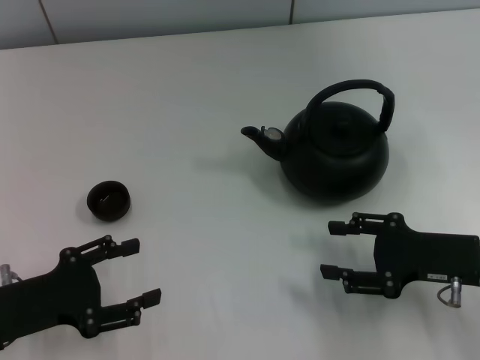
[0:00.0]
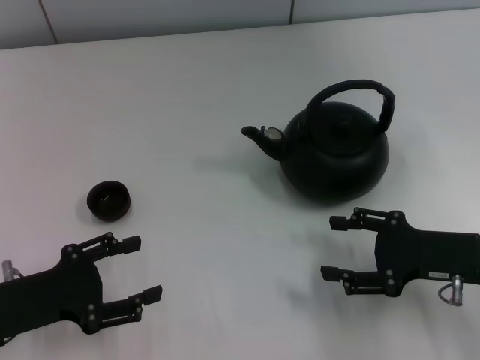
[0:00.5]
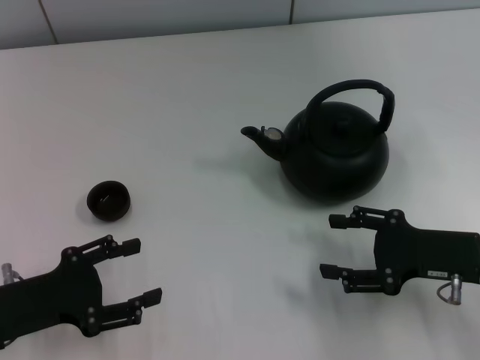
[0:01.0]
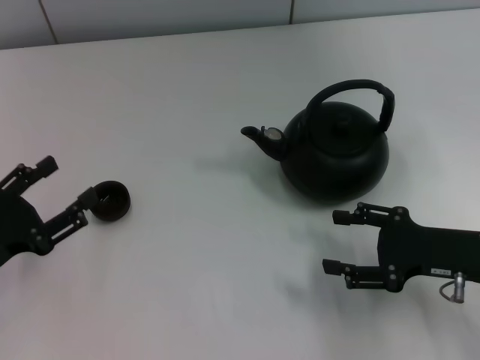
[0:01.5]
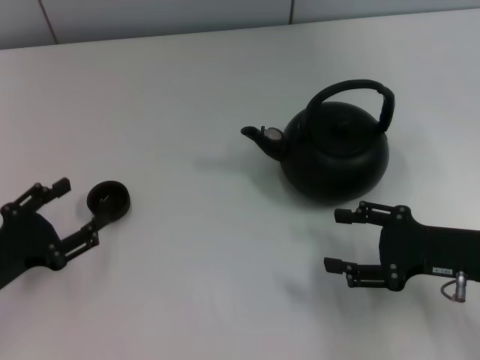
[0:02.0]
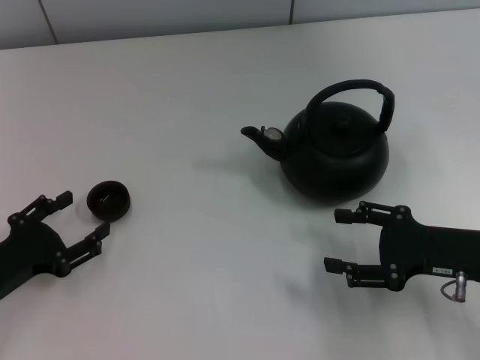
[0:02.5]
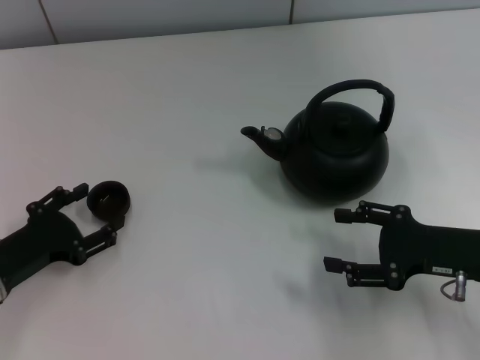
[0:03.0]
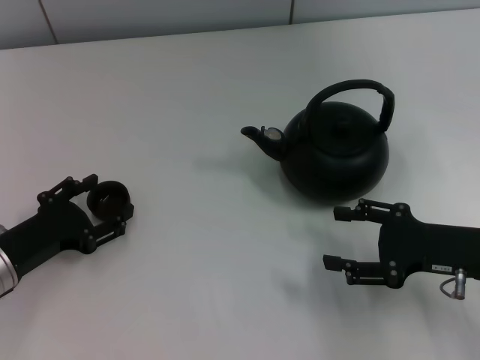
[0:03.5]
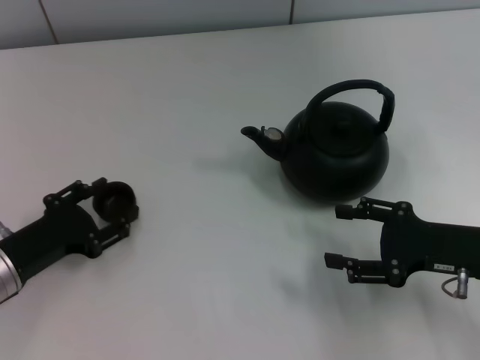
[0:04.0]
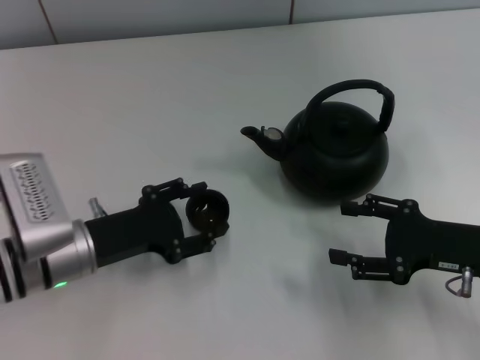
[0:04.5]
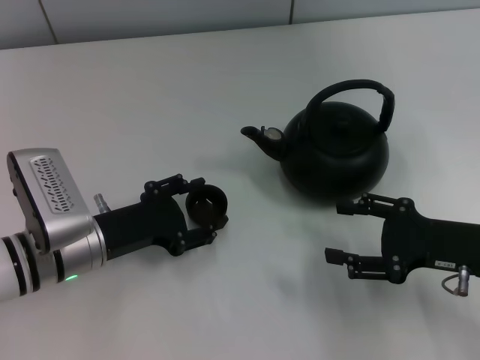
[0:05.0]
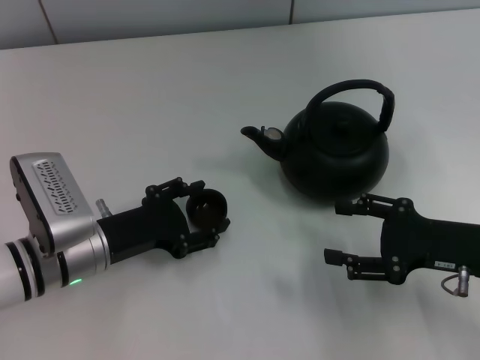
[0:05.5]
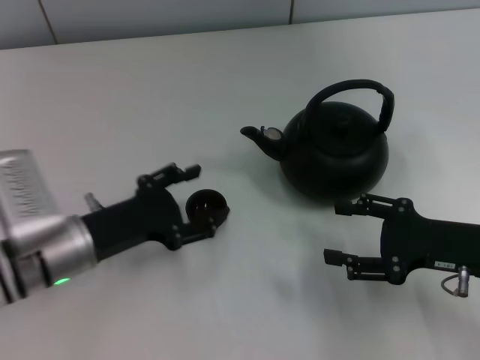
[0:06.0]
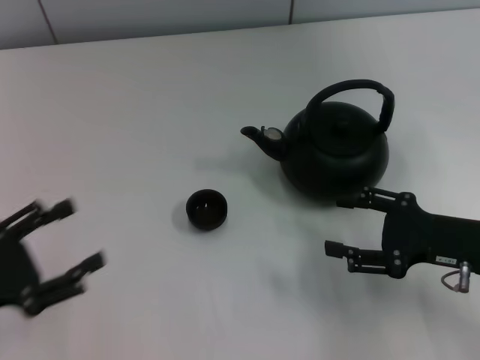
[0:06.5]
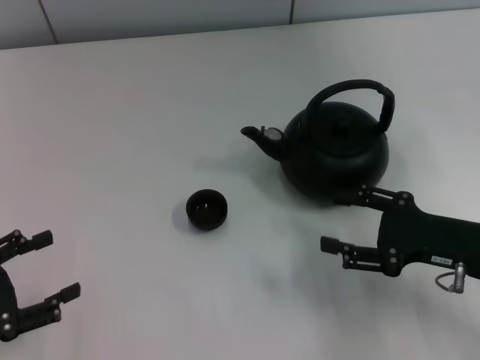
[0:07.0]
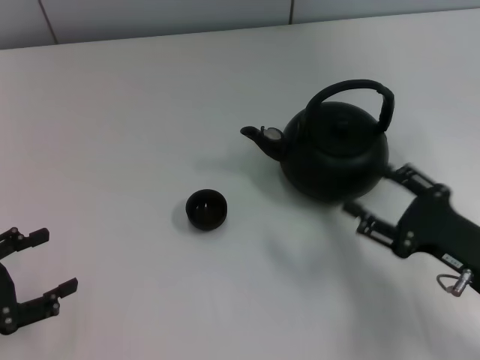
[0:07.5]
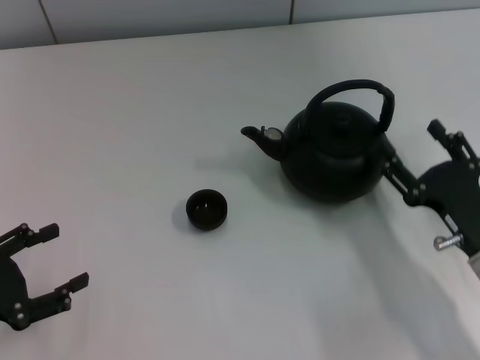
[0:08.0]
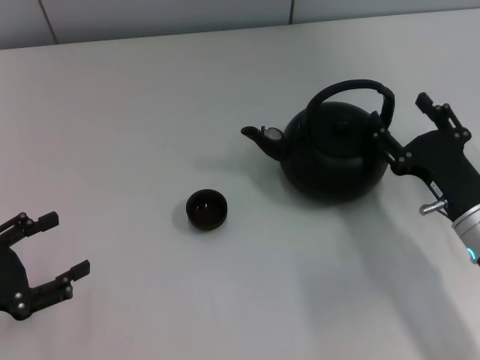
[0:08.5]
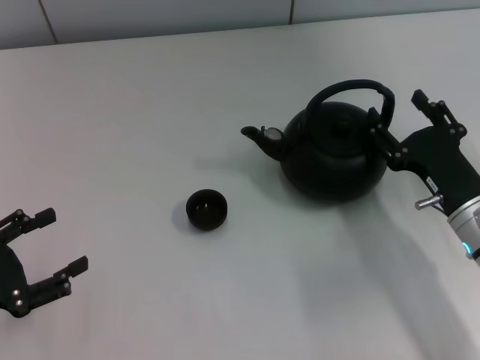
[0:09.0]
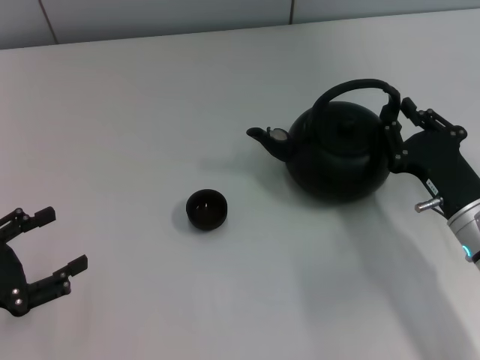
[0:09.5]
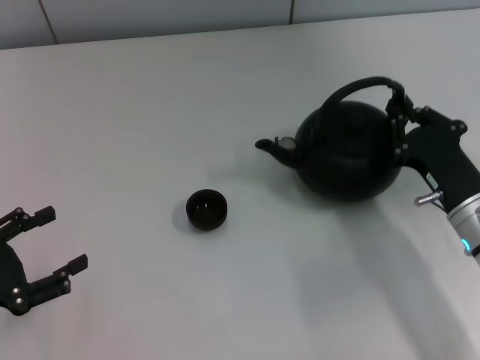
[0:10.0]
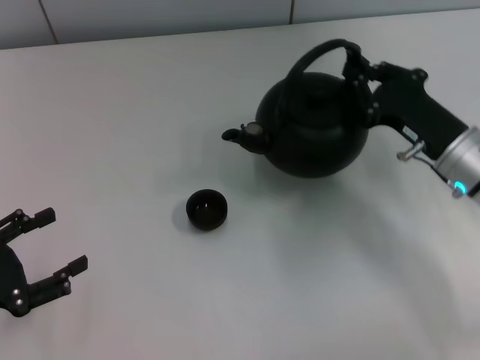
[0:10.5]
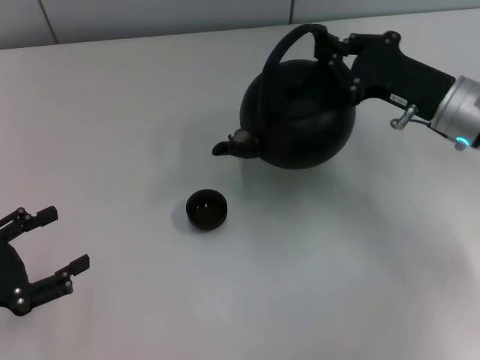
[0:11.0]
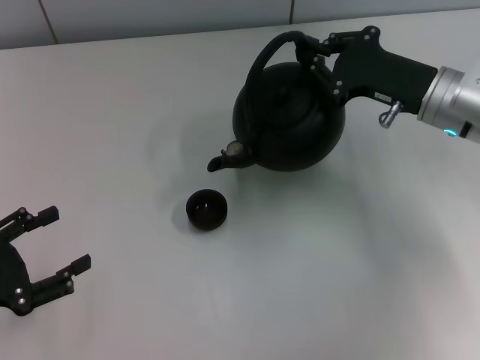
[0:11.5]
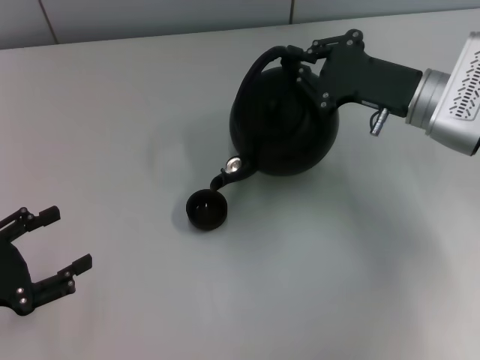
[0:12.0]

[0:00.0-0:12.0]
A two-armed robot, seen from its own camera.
Task of the whole recording: Grasp the handle of the teapot with one hand and pour tea into the teacup.
Step, 0:00.0 to 0:04.0: Pick up the teacup with the left gripper.
Step, 0:04.5 to 0:05.5: Place the teacup in the center of view with the left gripper.
Step, 0:06.0 to 0:10.5: Pick up the teapot with the right gripper.
0:02.0 to 0:04.0: The left gripper closes its fingers.
0:04.0 to 0:06.0: The left gripper is displaced to the right by approximately 5 cm, and opens.
0:06.0 to 0:08.0: The left gripper travels to the left and backward by about 15 cm, while the right gripper shifts by about 5 cm.
0:08.0 to 0:10.0: The right gripper closes.
0:10.0 to 0:12.0: The right gripper travels forward and upward by approximately 15 cm.

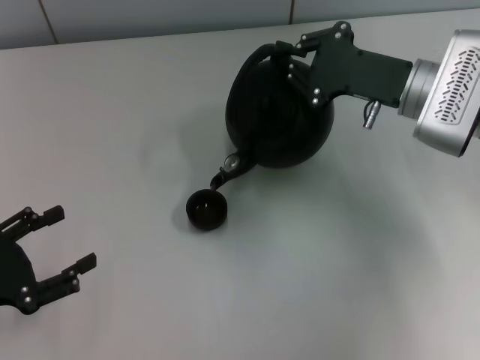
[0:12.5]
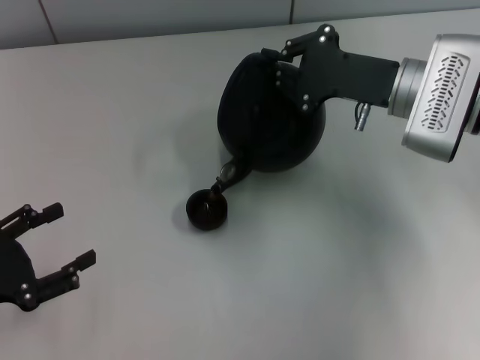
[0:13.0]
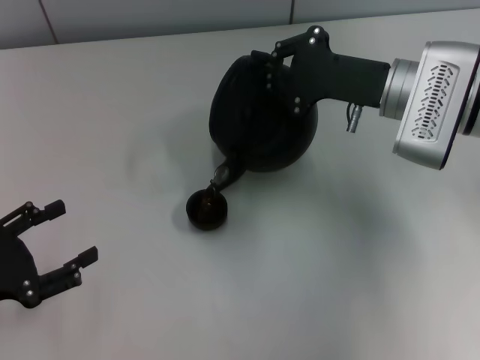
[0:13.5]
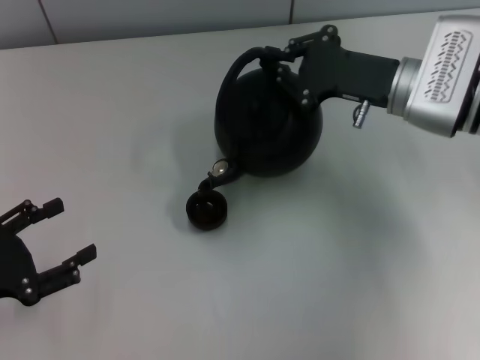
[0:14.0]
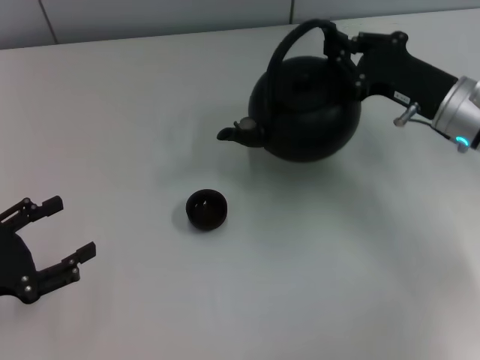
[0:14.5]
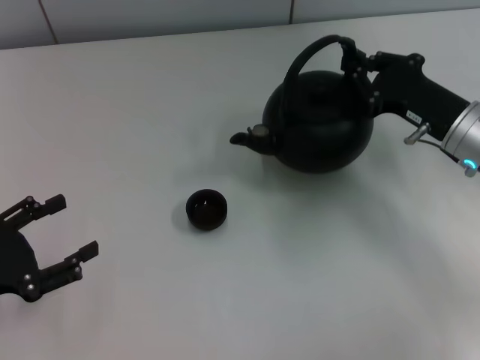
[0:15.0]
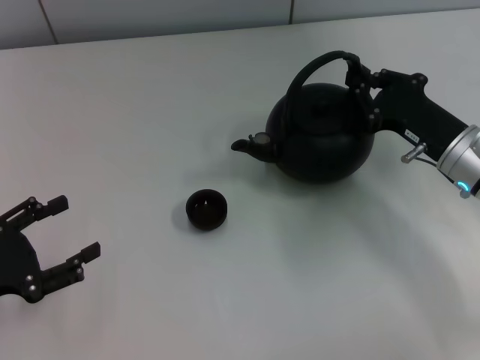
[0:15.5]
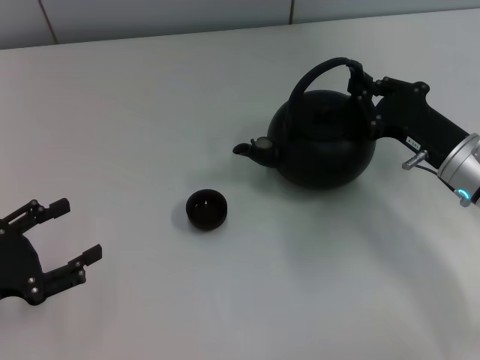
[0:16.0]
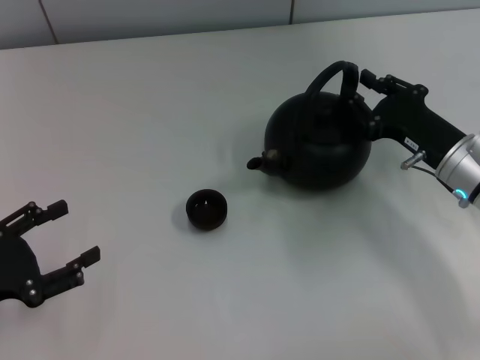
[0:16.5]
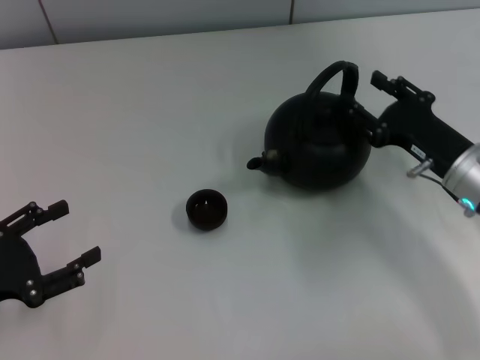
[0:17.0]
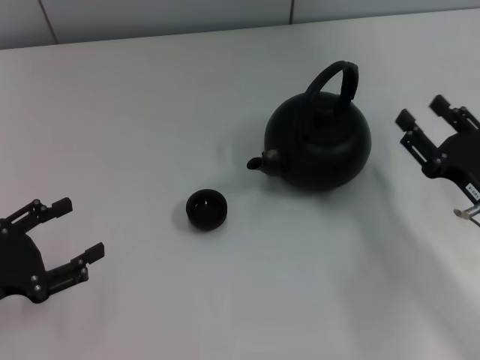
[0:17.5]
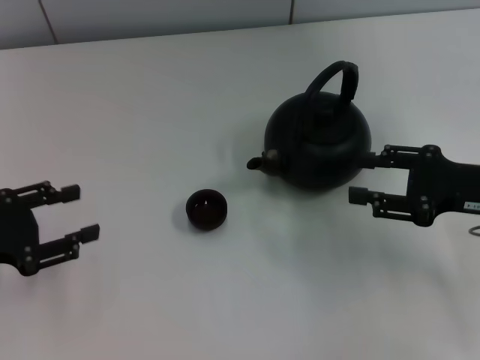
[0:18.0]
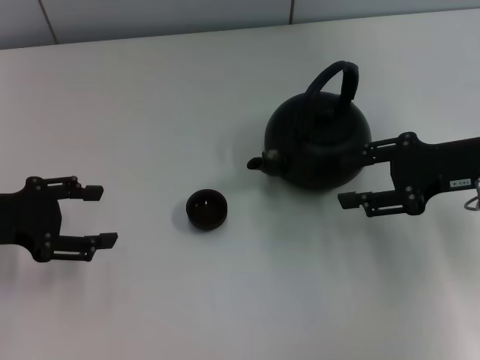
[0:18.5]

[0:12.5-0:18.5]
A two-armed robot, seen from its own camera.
Task of the whole recording: Grasp the handle of the teapot with one hand and pour tea into the teacup.
Step, 0:14.5 to 0:17.0: Put down the teapot with the right gripper.
0:14.5 to 0:16.5: The right gripper shifts by roughly 5 cm.
0:16.5 to 0:18.5: The right gripper heads upward, covering approximately 10 cm, and opens up. Meanwhile the left gripper moves forward and upward, about 10 cm, and closes.
